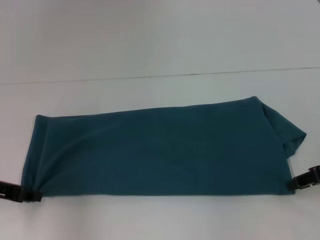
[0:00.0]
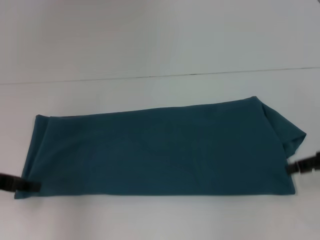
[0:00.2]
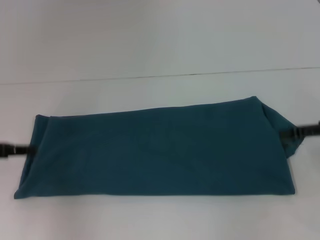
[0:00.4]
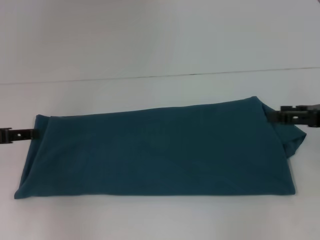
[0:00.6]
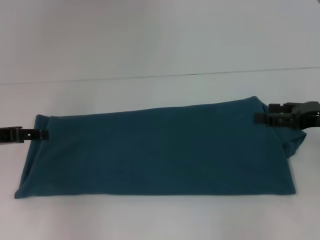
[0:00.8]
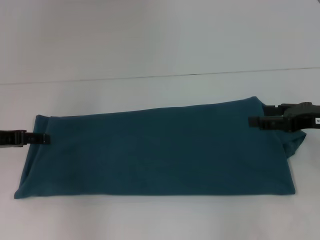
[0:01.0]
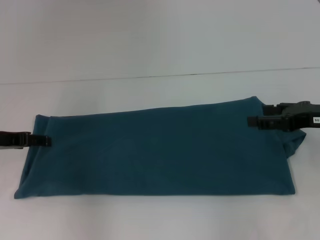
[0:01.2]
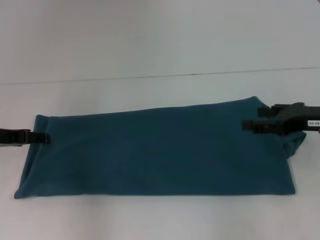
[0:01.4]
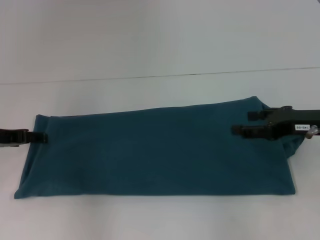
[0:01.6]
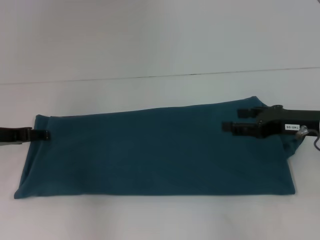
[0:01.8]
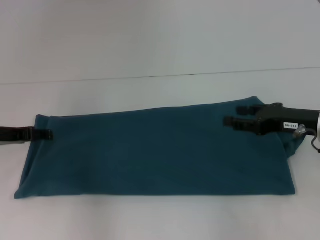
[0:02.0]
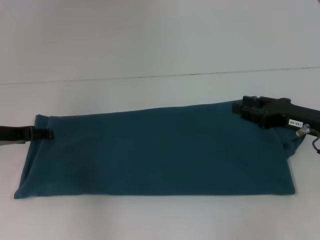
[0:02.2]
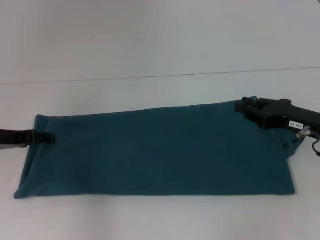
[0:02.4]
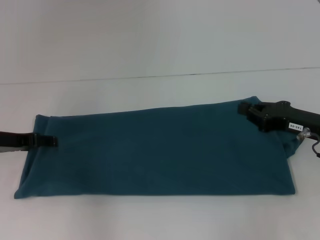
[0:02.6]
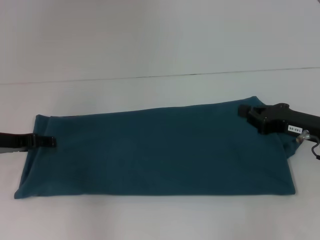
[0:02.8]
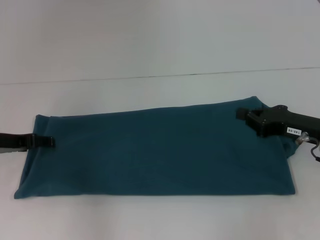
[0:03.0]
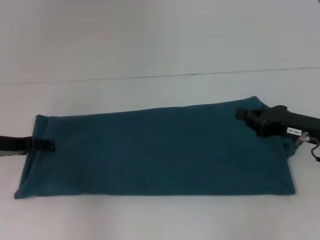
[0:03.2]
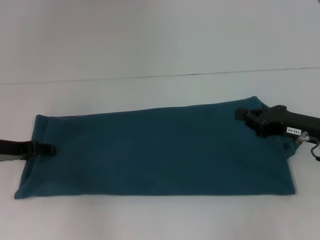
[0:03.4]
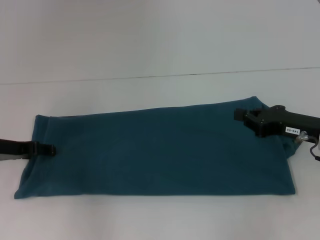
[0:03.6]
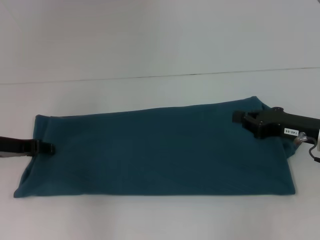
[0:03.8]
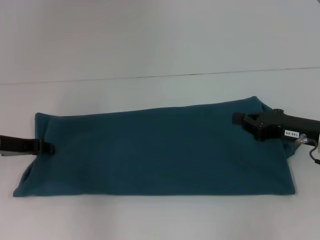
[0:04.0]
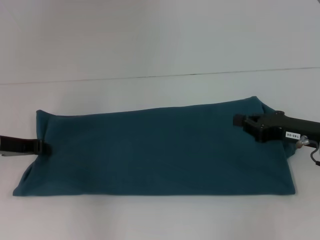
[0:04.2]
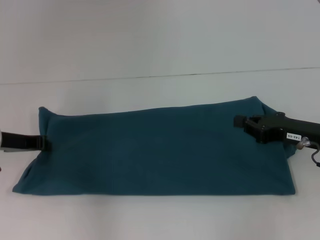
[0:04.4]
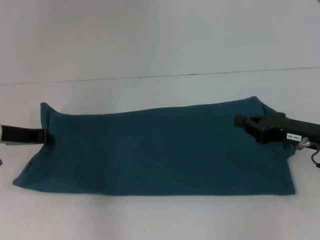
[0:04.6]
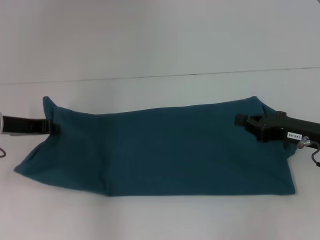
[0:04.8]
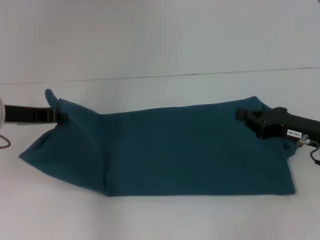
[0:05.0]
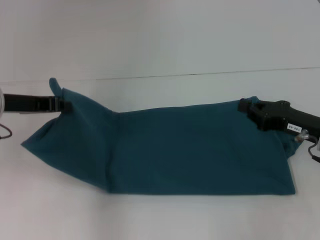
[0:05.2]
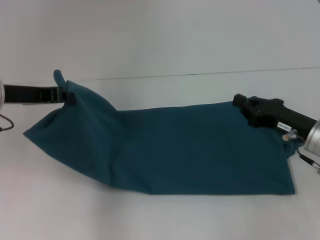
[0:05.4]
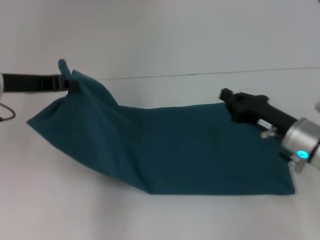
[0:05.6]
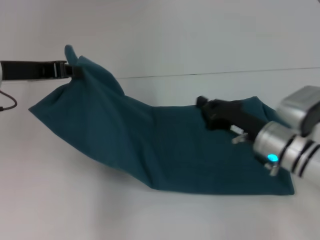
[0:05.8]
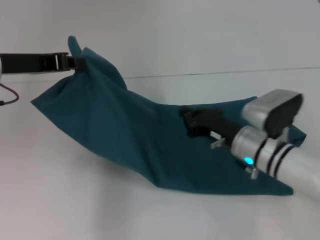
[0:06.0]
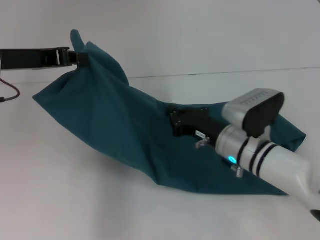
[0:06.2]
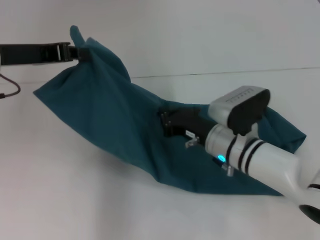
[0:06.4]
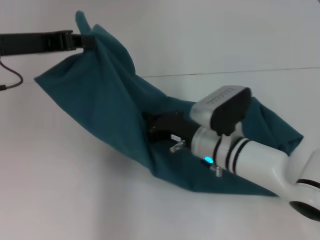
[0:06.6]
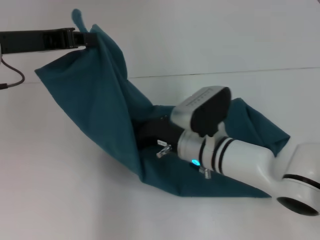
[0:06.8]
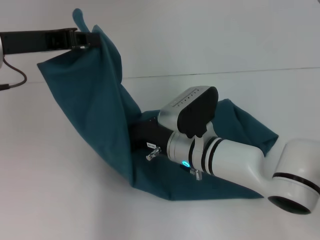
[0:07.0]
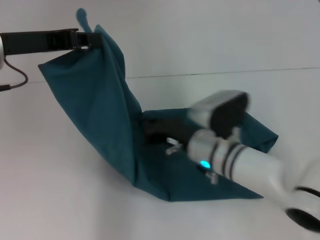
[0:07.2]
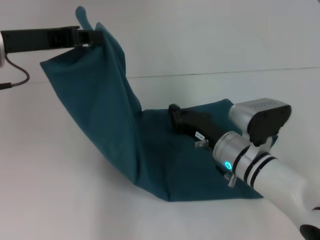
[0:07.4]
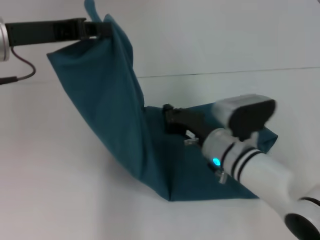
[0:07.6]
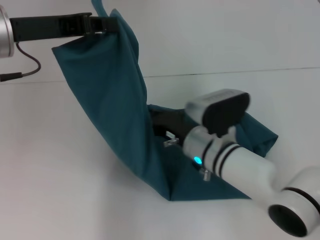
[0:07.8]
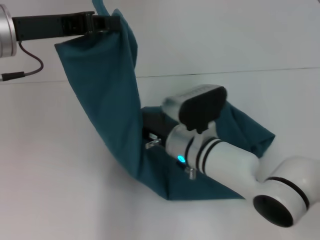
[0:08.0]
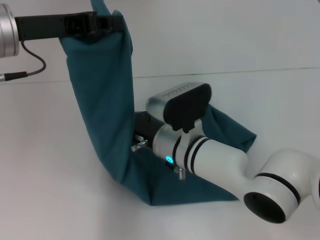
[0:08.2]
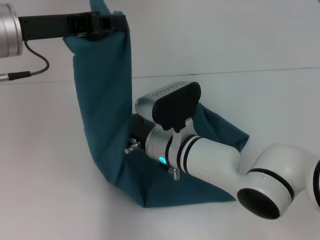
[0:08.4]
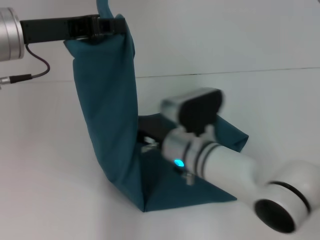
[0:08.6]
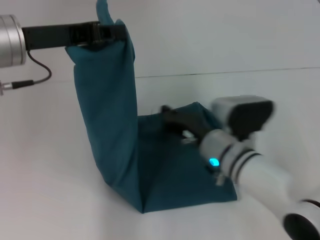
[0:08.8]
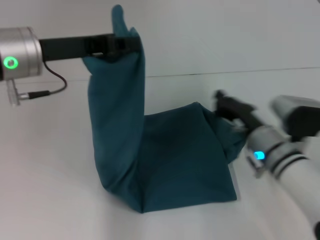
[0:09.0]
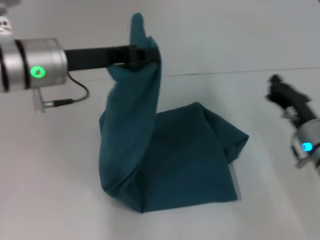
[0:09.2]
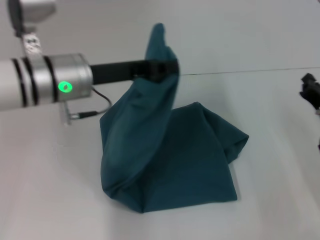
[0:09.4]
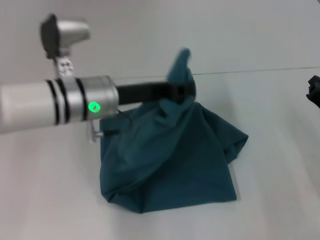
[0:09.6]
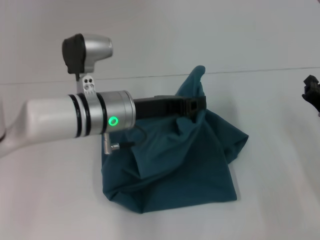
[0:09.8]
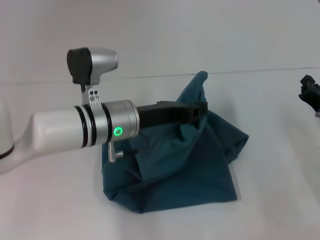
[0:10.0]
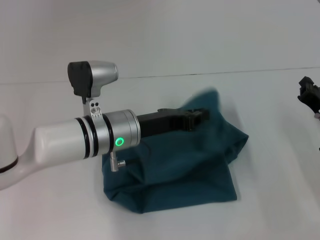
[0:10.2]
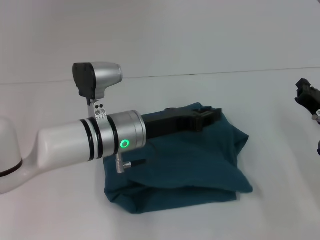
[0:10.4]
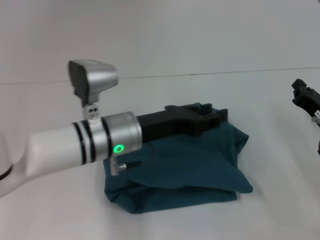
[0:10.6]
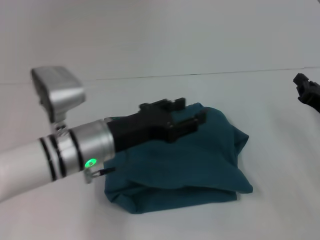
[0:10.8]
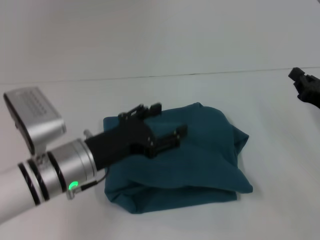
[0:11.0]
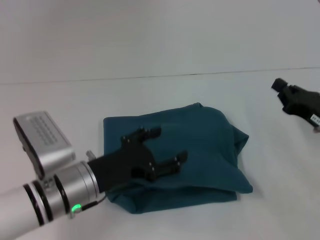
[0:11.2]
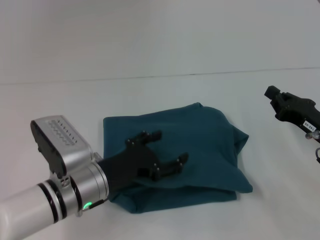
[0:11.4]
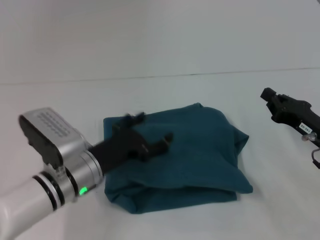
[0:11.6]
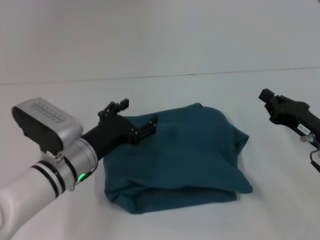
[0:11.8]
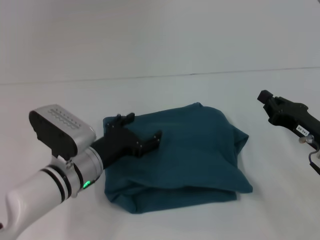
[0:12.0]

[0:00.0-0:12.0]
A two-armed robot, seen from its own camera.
Step, 0:00.4 to 0:08.6: Press the middle of the clothes with your right hand.
Step, 0:08.8 to 0:10.2: Fold the clothes to the left.
0:00.0 to 0:01.6: The right gripper ends up some 5 cm from where it was, and opens. The left gripper heads forward, covering approximately 5 cm, and opens its fingers.
0:01.6 to 0:03.0: The right gripper closes.
0:03.0 to 0:04.4: The left gripper closes its fingers.
0:04.4 to 0:06.0: The right gripper is displaced to the left and downward by about 15 cm, while the left gripper moves upward, about 10 cm.
0:06.0 to 0:07.6: The right gripper moves to the left, some 5 cm.
0:07.6 to 0:09.0: The right gripper heads to the right, covering approximately 5 cm.
0:09.0 to 0:10.4: The right gripper shifts approximately 10 cm to the right, while the left gripper is displaced downward and to the right by some 15 cm.
0:10.4 to 0:12.0: The left gripper travels downward and to the left by roughly 10 cm, and opens.

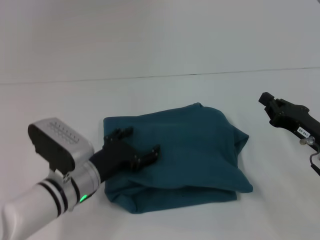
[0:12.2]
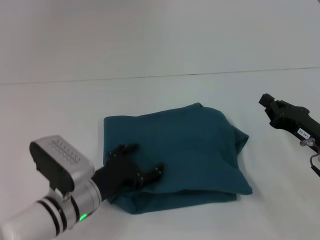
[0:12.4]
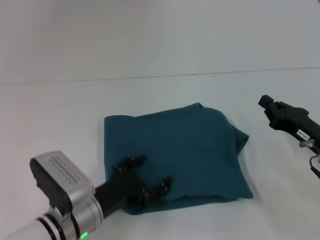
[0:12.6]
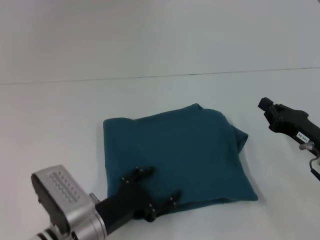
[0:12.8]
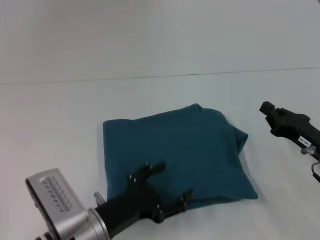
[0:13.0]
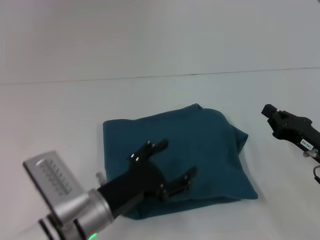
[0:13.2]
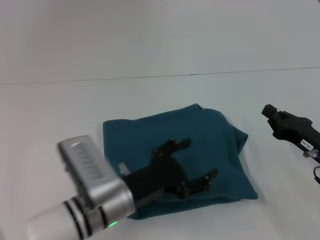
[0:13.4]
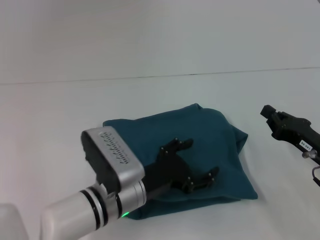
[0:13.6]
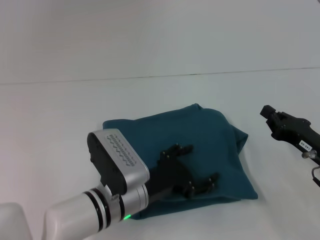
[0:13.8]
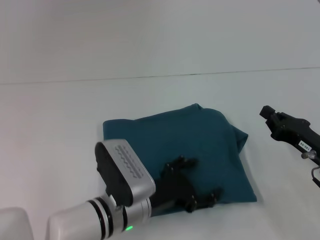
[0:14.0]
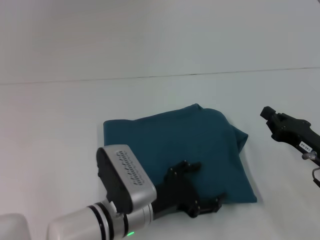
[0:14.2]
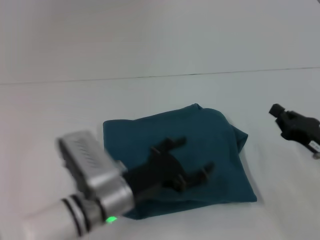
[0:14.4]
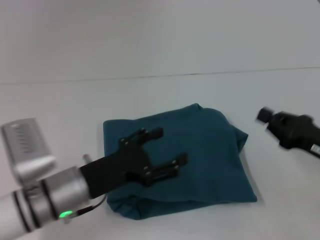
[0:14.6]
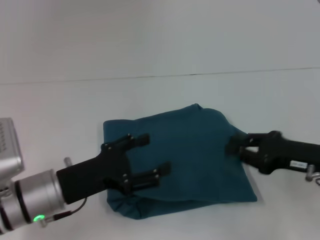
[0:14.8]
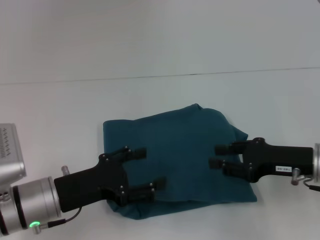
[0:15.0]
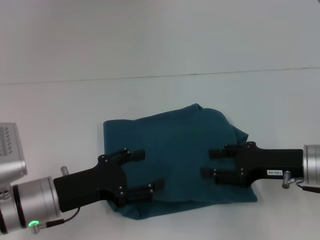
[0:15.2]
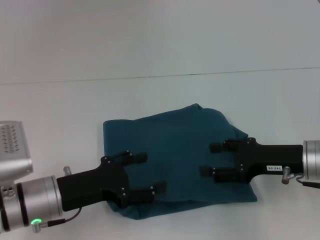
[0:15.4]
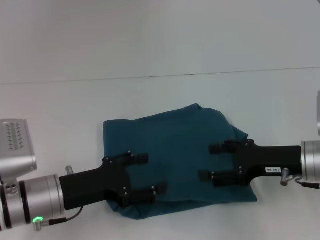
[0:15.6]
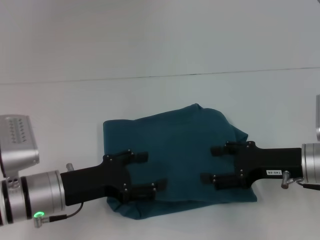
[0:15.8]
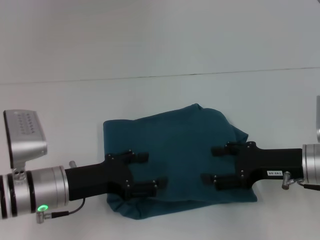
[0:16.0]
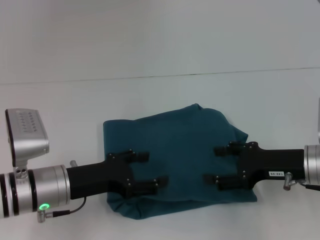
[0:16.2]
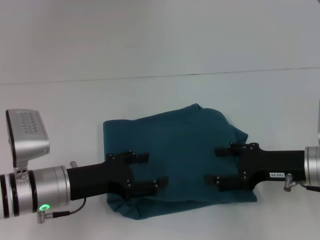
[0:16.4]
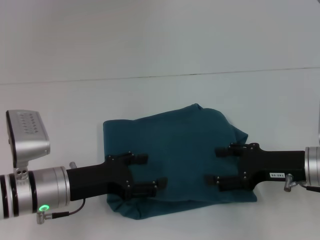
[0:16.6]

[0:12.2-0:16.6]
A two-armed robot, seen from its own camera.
0:12.2 to 0:13.6: The left gripper goes roughly 5 cm to the right.
0:13.6 to 0:15.2: The left gripper goes roughly 10 cm to the left. The right gripper ends up about 5 cm from where it was.
0:15.2 to 0:16.6: The right gripper opens its fingers.

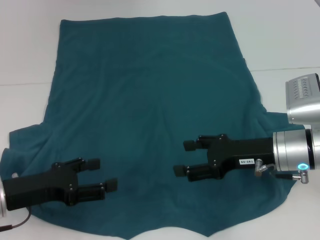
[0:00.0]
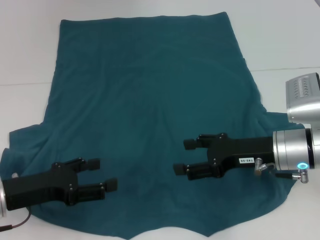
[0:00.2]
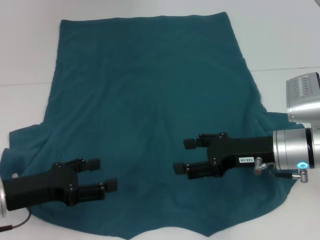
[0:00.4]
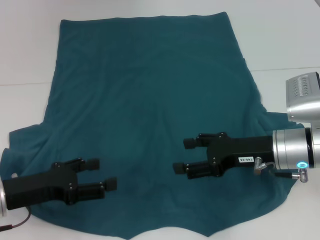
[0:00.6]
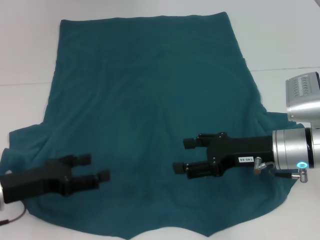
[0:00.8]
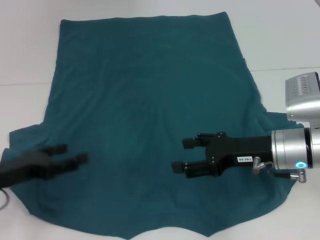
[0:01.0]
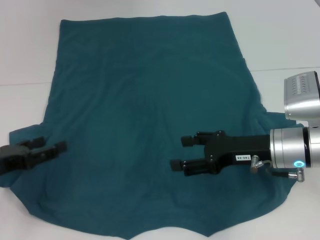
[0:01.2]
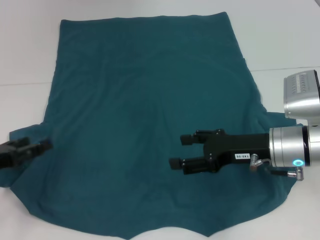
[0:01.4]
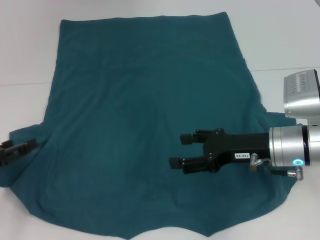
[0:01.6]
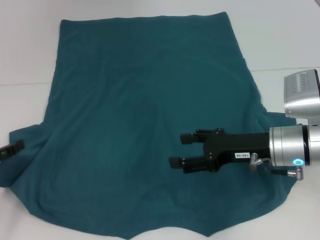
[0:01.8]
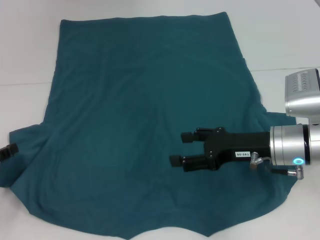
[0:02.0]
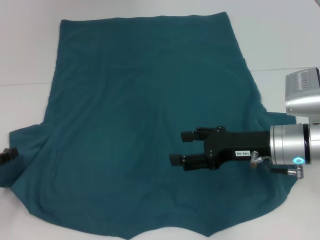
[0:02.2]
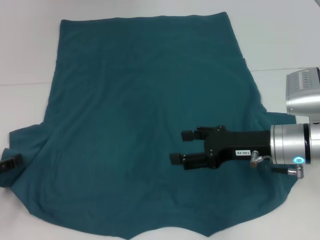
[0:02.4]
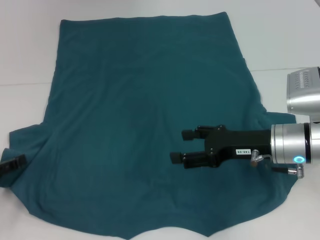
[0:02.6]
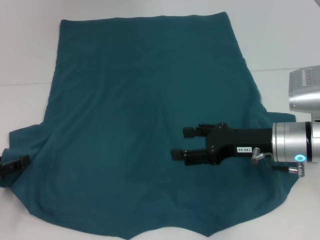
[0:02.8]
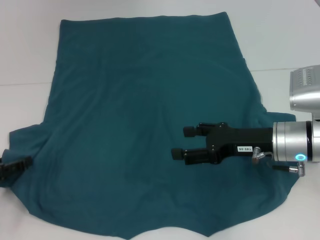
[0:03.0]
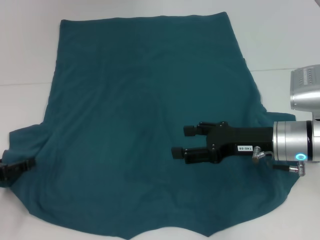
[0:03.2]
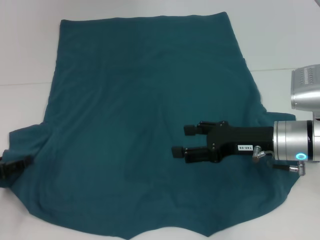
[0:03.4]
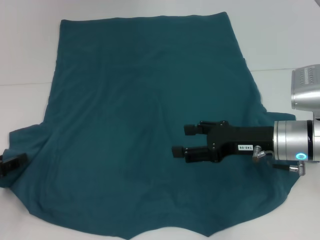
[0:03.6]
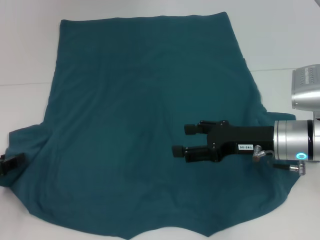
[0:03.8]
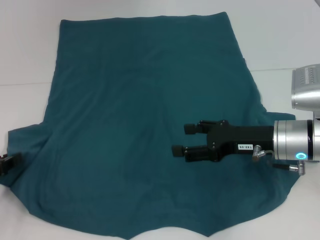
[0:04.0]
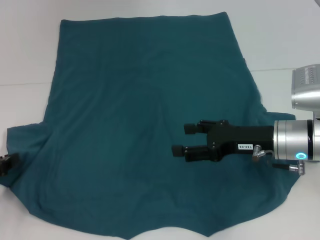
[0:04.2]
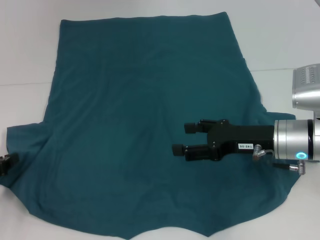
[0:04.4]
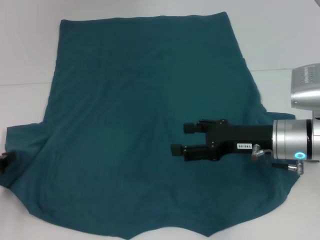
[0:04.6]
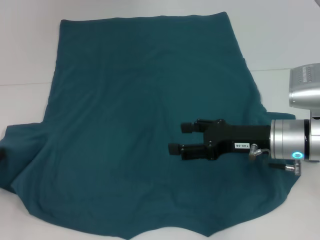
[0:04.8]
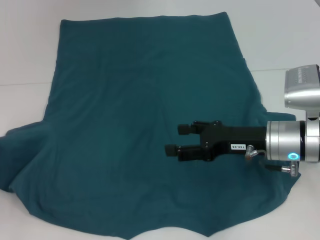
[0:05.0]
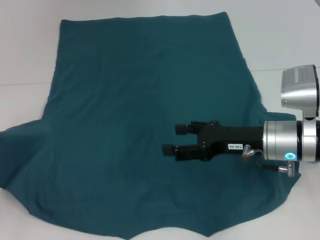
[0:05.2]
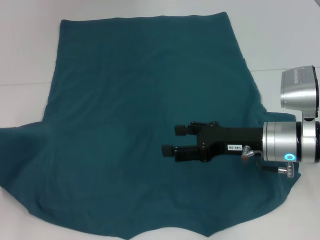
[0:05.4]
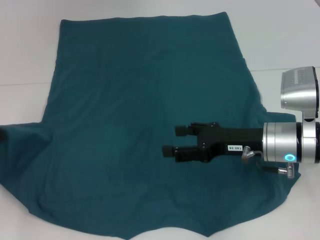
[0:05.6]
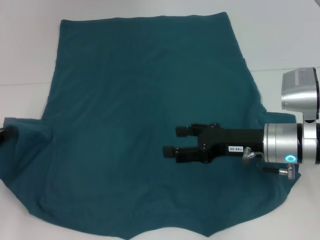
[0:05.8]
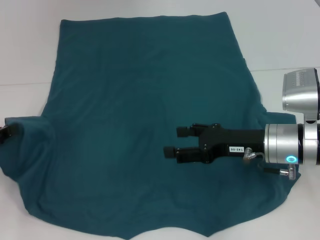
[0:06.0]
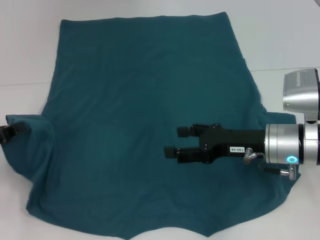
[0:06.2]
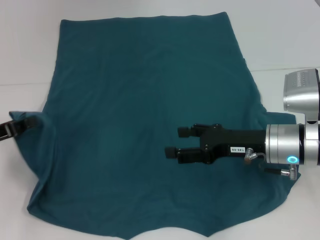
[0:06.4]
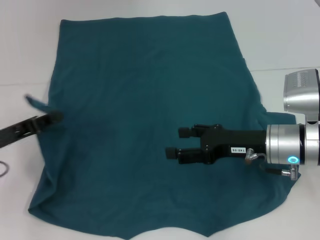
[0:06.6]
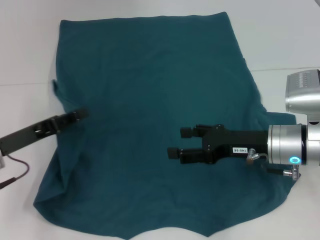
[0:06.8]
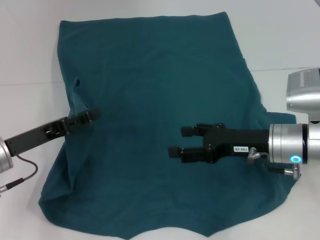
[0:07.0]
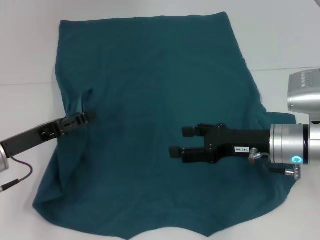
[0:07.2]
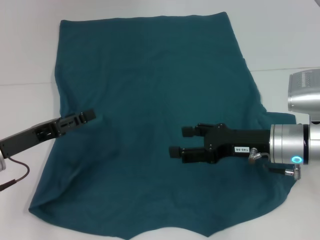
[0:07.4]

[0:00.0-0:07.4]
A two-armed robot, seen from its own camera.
0:00.0 to 0:01.4: The left gripper heads to the left, covering roughly 5 cm.
0:01.4 to 0:03.0: The grippers move only a little.
0:03.0 to 0:04.4: The left gripper closes its fingers.
0:04.4 to 0:06.0: The grippers make only small movements.
0:06.0 to 0:07.4: The left gripper is displaced to the right by roughly 10 cm, and opens its fingers.
